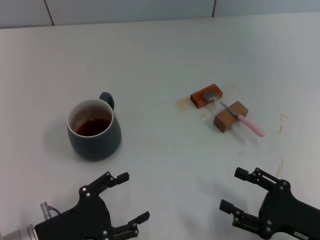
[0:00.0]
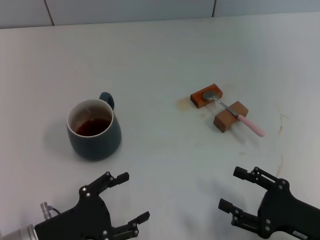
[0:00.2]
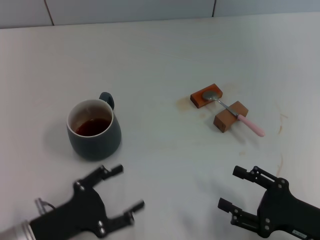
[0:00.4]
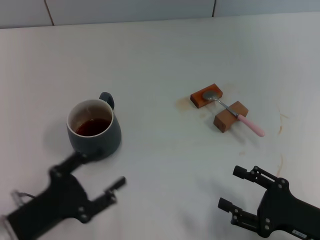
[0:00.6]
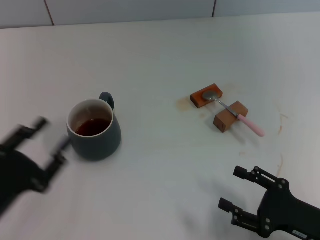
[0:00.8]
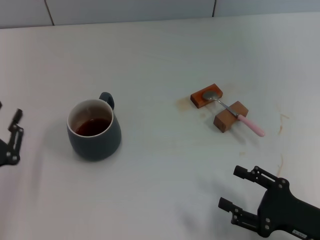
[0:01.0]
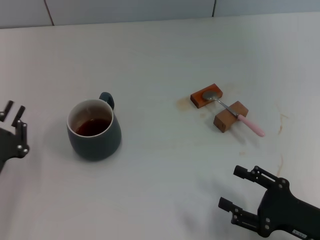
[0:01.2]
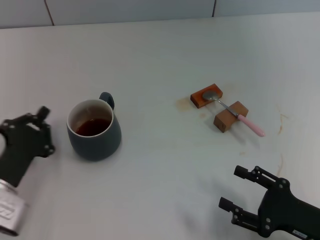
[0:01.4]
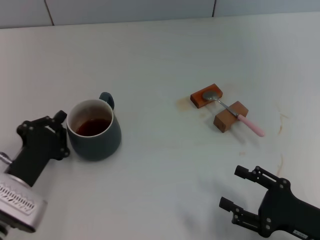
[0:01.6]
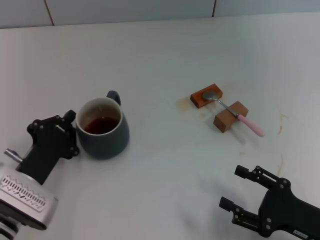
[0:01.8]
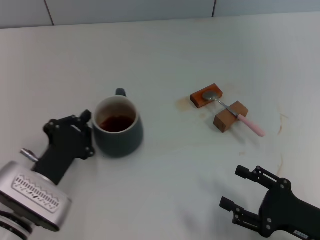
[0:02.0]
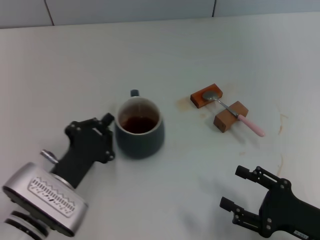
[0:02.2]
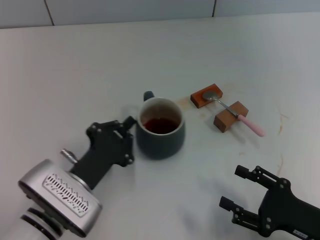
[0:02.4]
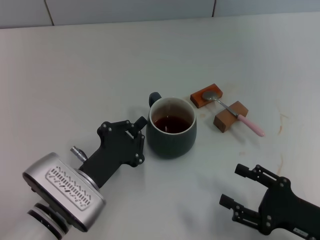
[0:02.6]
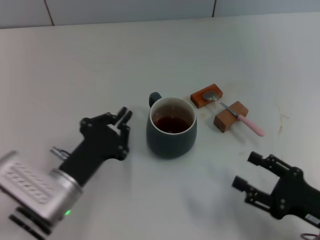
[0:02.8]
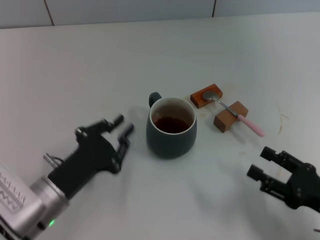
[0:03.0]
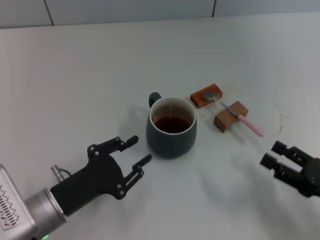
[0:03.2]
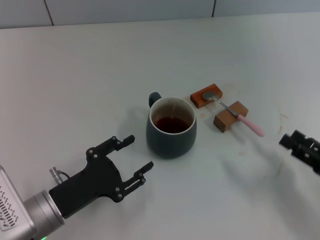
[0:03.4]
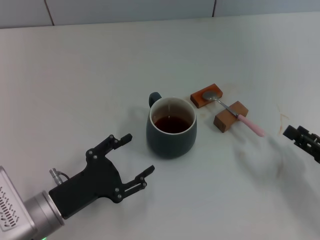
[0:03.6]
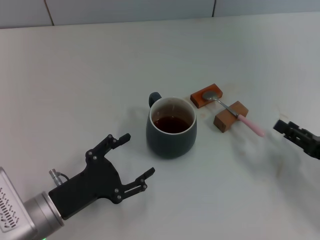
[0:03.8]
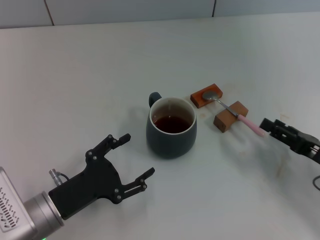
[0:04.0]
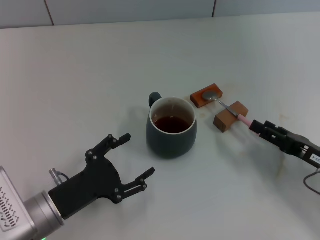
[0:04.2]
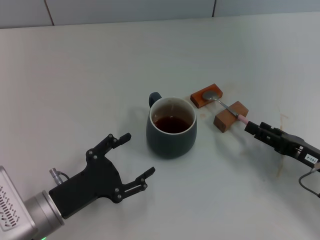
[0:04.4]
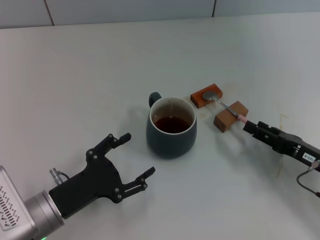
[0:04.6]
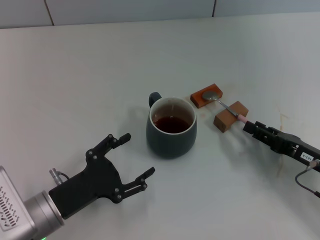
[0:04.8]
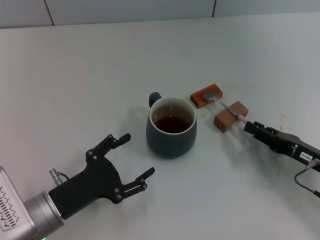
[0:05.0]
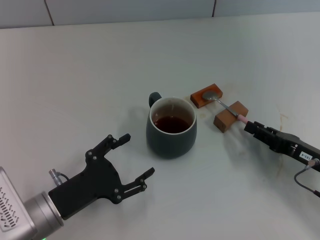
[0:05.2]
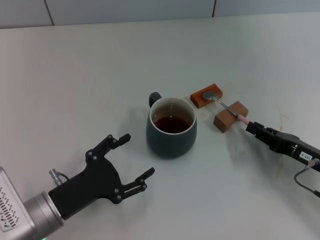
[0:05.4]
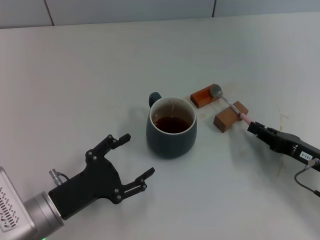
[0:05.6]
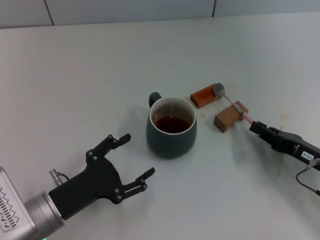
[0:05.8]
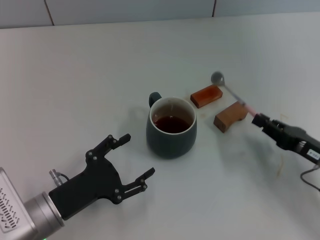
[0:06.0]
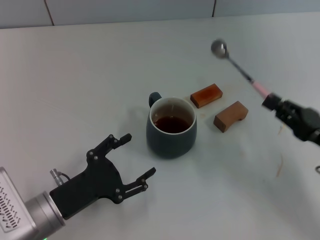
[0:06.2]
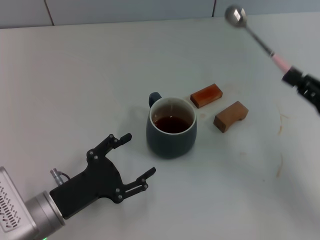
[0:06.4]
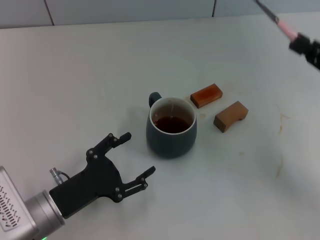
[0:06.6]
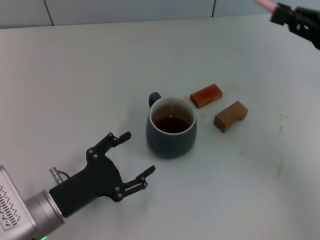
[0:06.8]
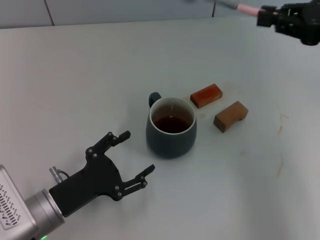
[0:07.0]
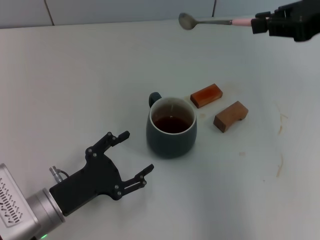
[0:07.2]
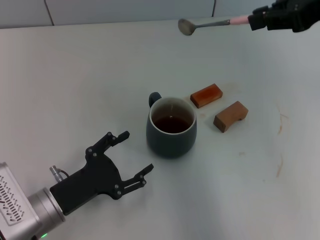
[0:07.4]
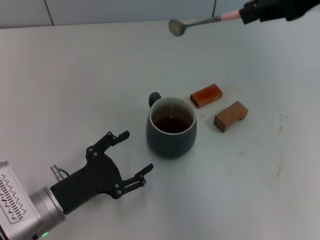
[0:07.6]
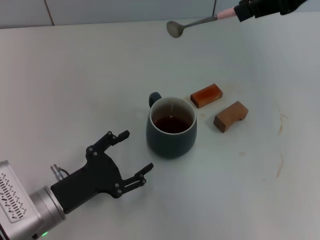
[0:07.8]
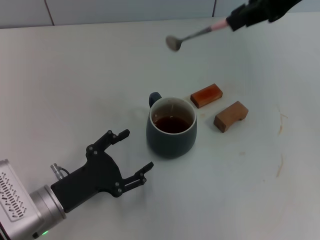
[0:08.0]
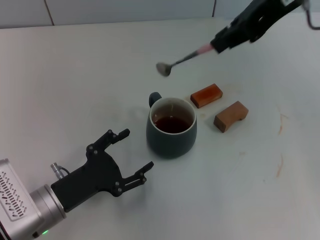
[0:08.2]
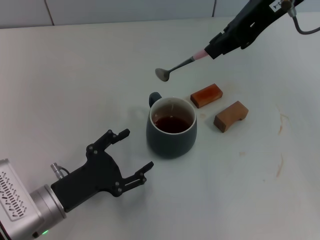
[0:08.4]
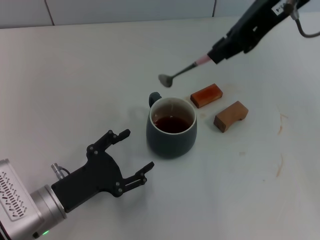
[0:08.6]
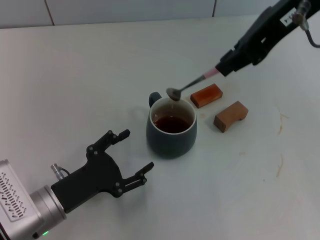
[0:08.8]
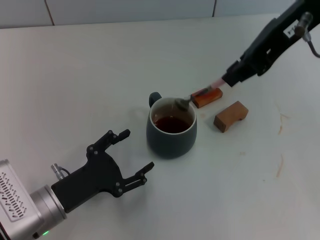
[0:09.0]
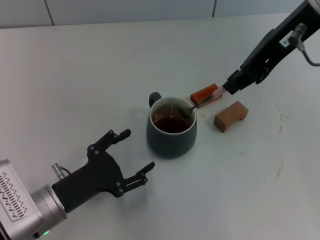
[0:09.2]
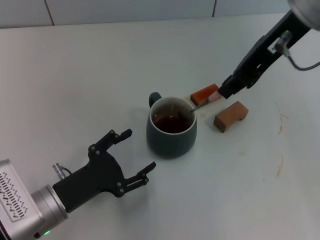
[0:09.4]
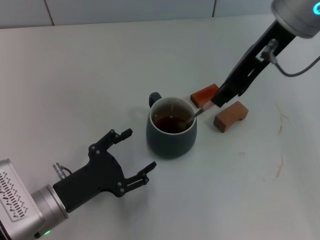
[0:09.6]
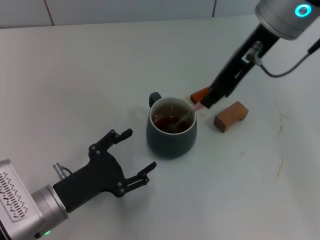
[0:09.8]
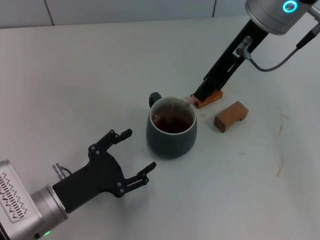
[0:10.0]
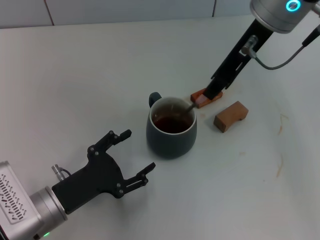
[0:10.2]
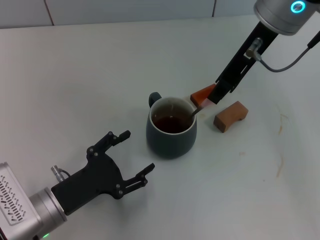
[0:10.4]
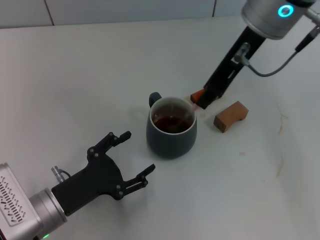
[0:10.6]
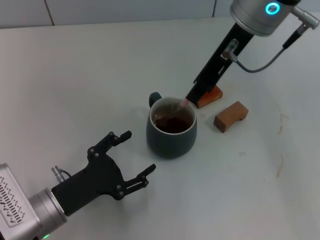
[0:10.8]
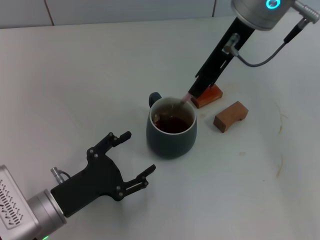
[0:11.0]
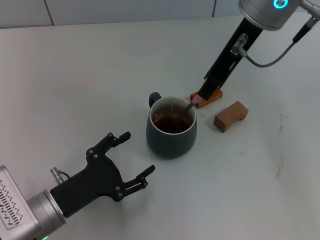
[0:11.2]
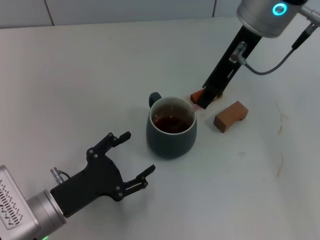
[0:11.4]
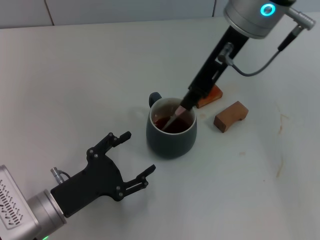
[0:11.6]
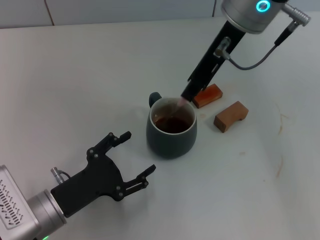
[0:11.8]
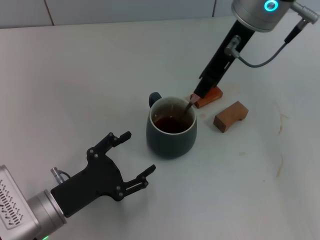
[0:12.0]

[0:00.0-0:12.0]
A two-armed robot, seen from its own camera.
Task of the whole recording: Move the grey cup to the center, lift the pink spoon, stir it three times in the cup, and put the spoon into the cup.
Step, 0:00.0 to 0:02.6: Move the cup with coffee to the center of view with the left gripper.
Step, 0:02.8 to 0:06.0: Pick up the spoon with the right gripper.
0:00.0 to 0:01.6: The left gripper moves forward, some 5 cm, and closes its fingers.
0:03.0 to 0:04.4: The left gripper opens, while the right gripper travels forward by roughly 5 cm.
0:04.4 to 0:06.0: The right gripper closes up.
0:06.0 to 0:07.6: The right gripper moves upward, about 30 cm.
0:07.6 to 0:09.0: The right gripper goes roughly 5 cm to the left.
0:09.0 to 0:10.4: The right gripper heads downward, covering about 5 cm.
0:10.4 to 0:12.0: The grippers make only small movements.

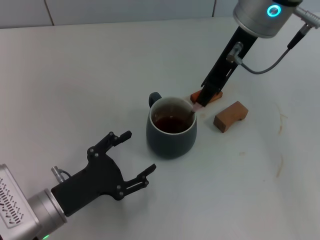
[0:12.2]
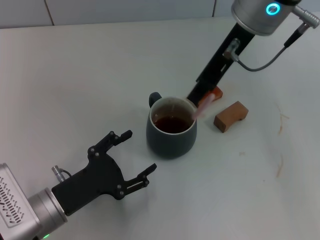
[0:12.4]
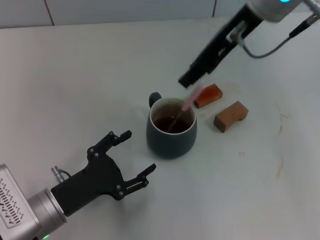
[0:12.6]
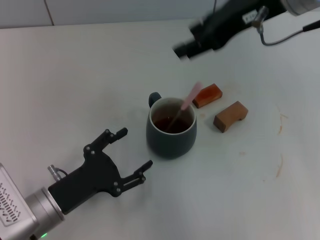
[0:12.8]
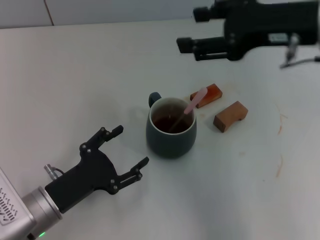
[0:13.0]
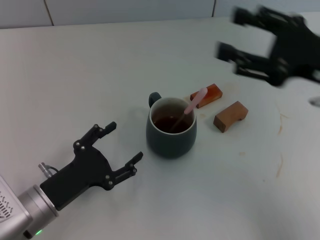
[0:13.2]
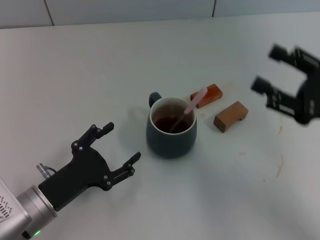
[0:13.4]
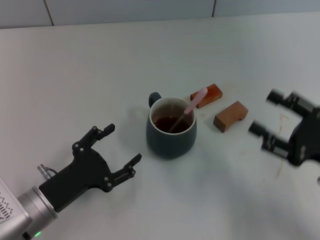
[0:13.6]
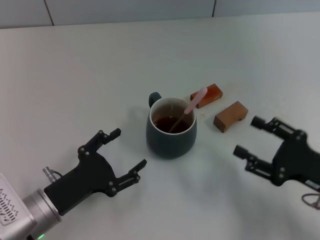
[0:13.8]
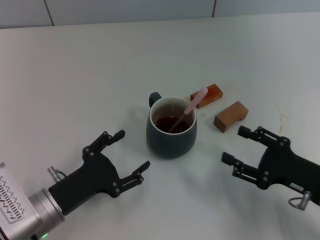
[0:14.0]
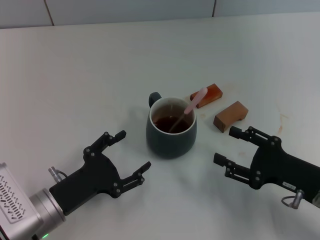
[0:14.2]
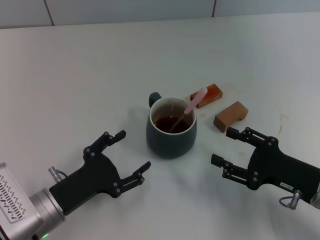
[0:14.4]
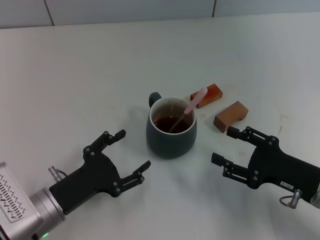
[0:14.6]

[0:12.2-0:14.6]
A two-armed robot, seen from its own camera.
Task of the whole recording: Move the grey cup to the center, lift the pink spoon, stir it three times in the cup, and put the spoon into the cup.
0:12.2 to 0:13.4: The right gripper shifts about 30 cm to the right, backward and downward, and opens up.
0:13.4 to 0:14.6: The right gripper shifts roughly 10 cm downward.
